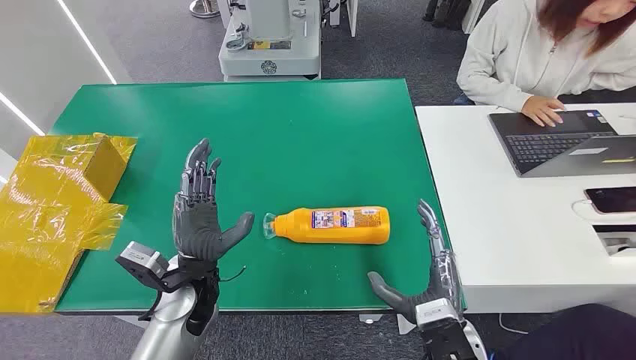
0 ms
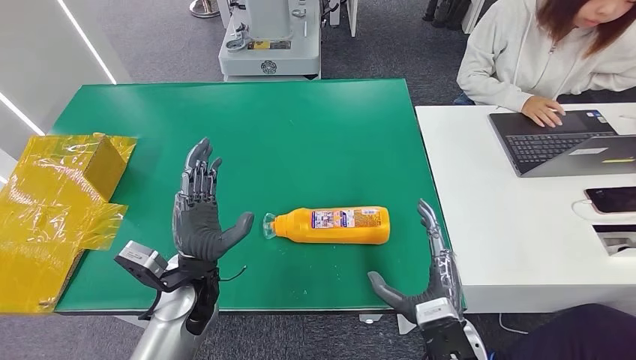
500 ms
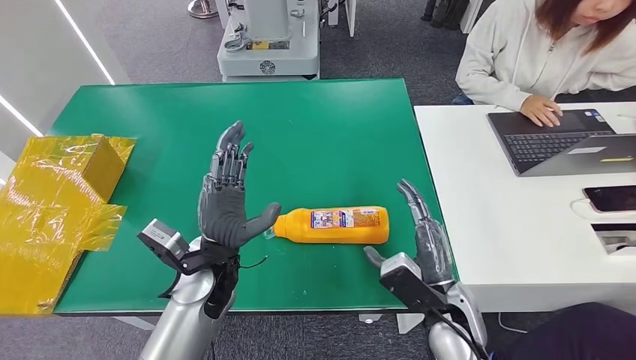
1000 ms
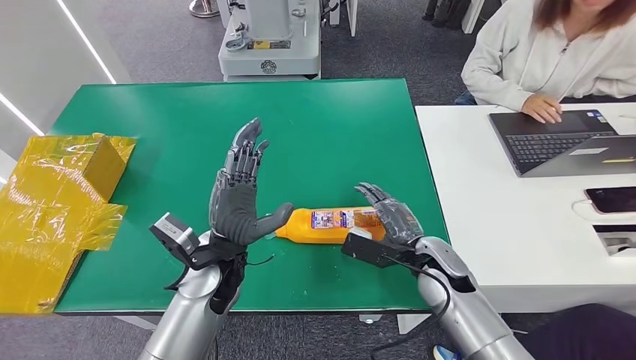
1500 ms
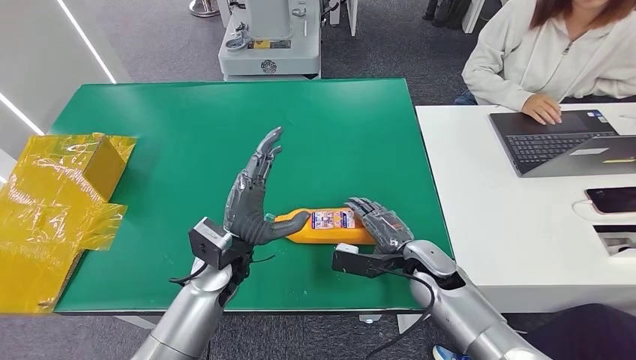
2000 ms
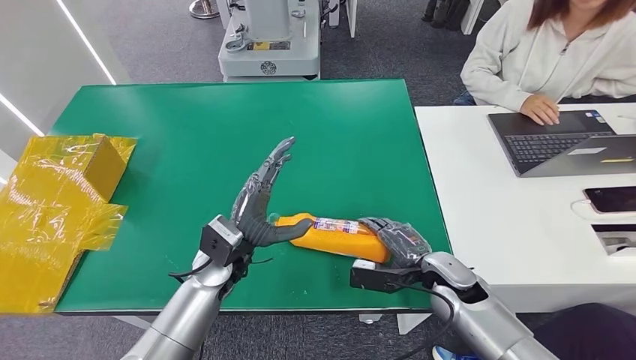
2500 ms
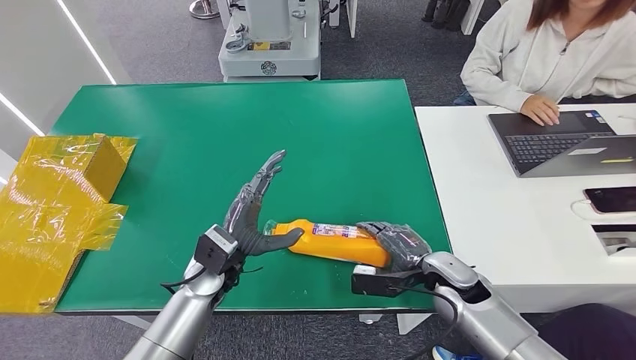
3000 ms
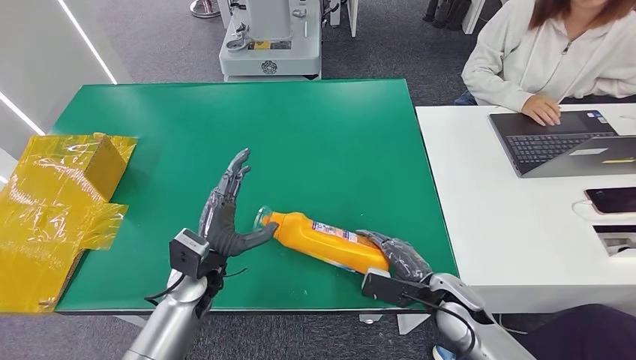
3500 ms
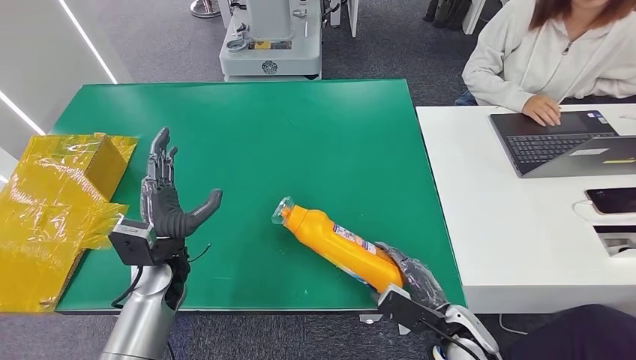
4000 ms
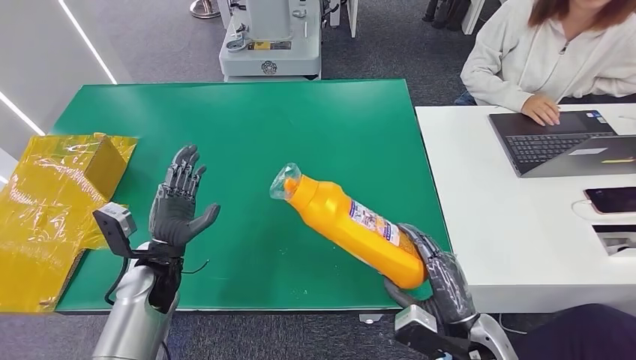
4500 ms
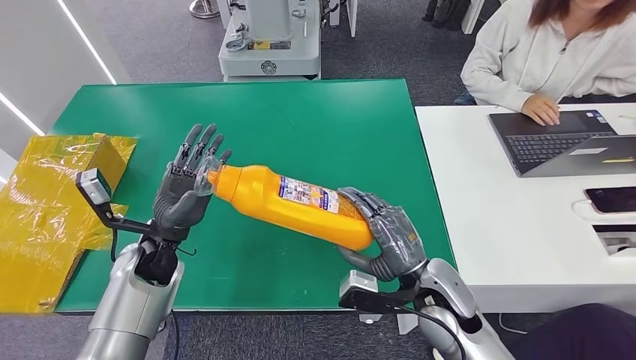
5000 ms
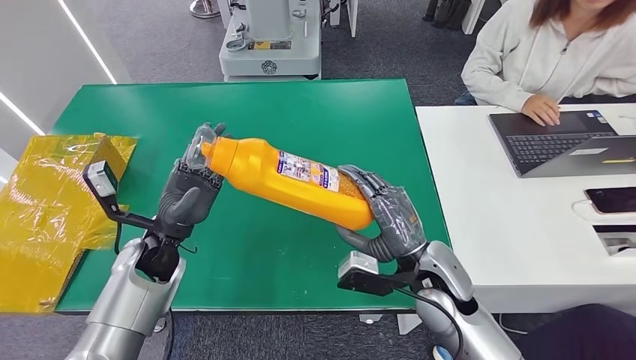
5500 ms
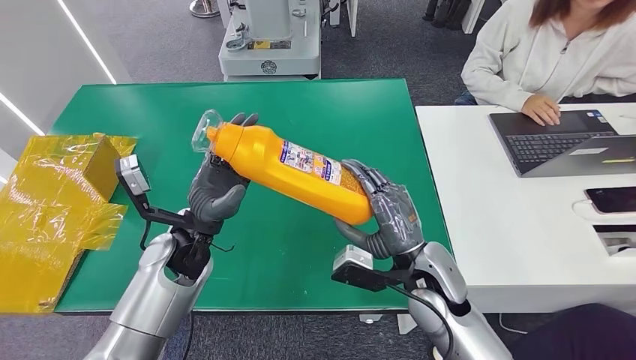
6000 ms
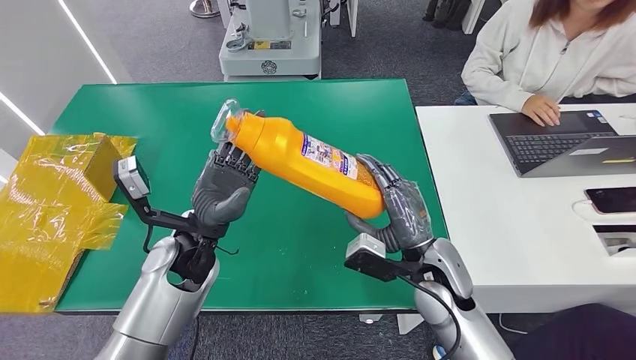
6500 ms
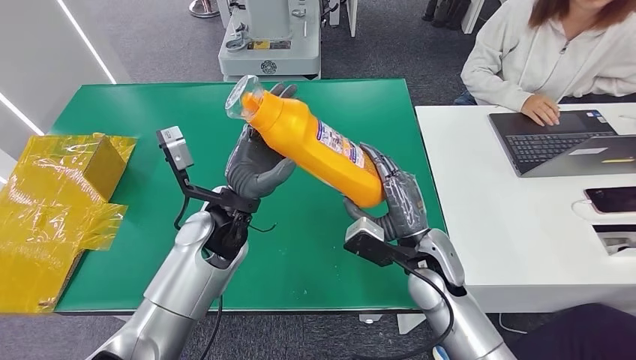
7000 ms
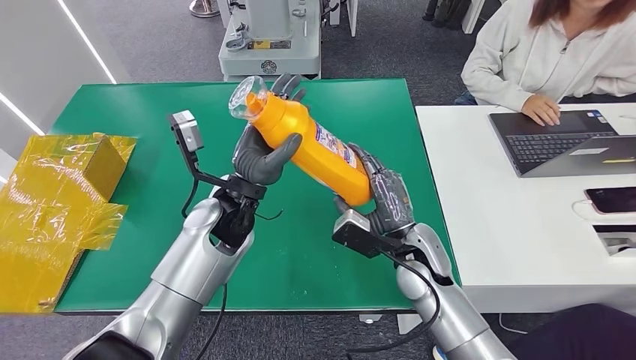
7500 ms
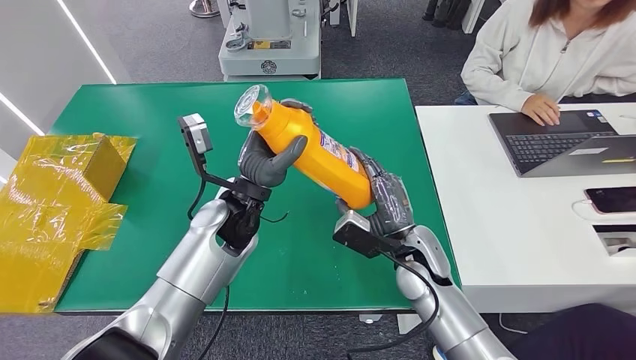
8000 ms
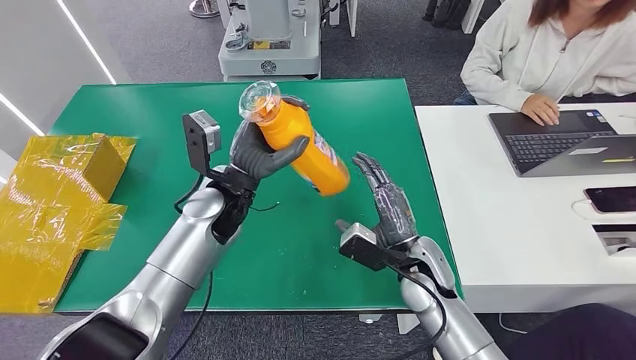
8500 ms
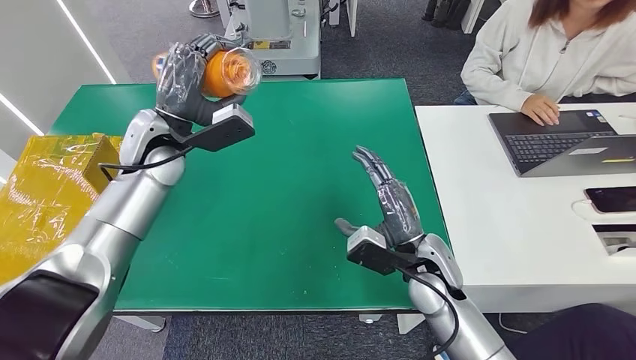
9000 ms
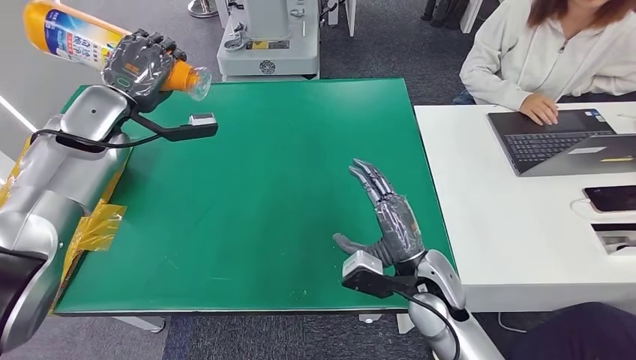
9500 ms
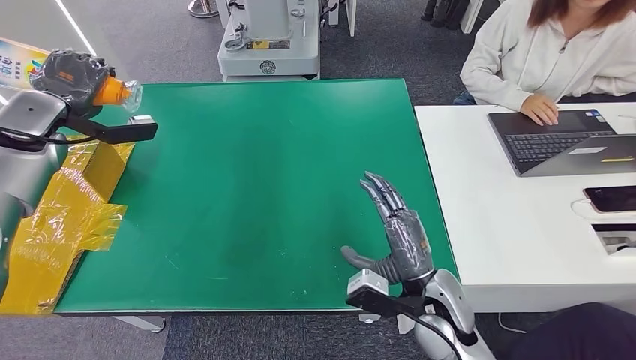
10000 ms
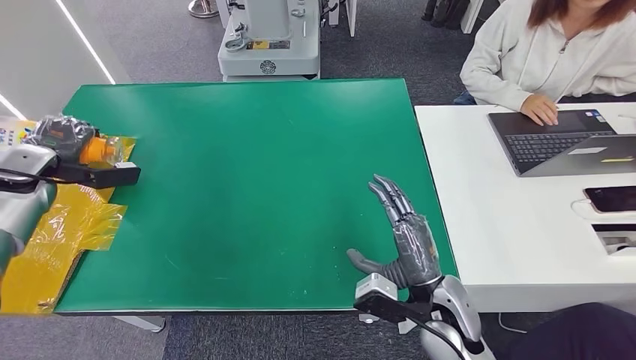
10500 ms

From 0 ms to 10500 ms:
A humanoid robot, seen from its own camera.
Step, from 0 ms to 4500 ms: Pick up the bottle from the table.
From 2000 ms to 4000 ms: The right hand goes some 10 cm backward, while the left hand shifts roughly 10 cm to the left.
From 4000 ms to 6500 ms: The left hand is displaced to the right and upward by roughly 10 cm. Meanwhile the right hand heads upward, forward and to the left, covering about 15 cm.
From 6500 ms to 8500 ms: The left hand heads forward, covering some 5 cm.
From 8500 ms to 10500 ms: The left hand travels to the left by some 40 cm. Meanwhile the right hand goes about 5 cm backward.

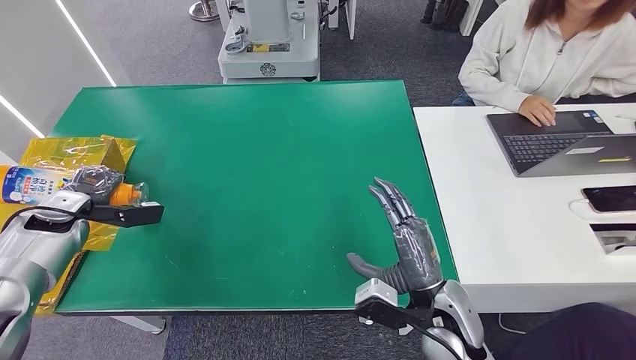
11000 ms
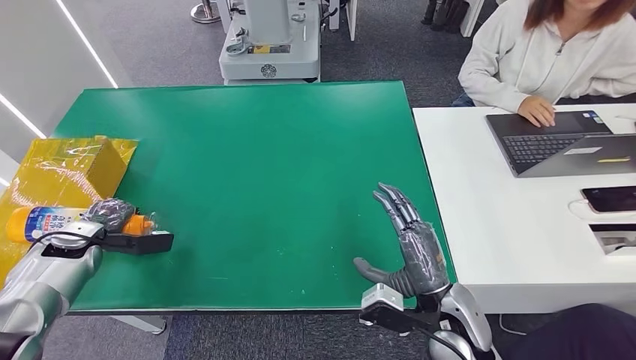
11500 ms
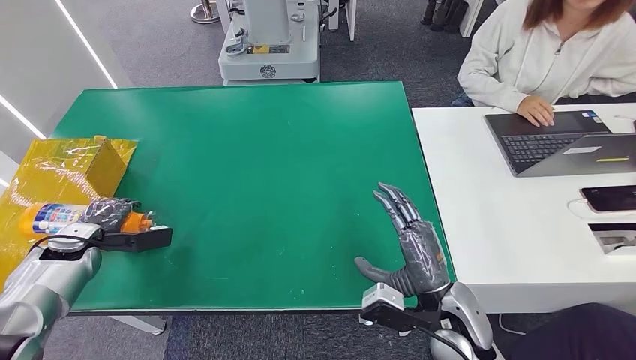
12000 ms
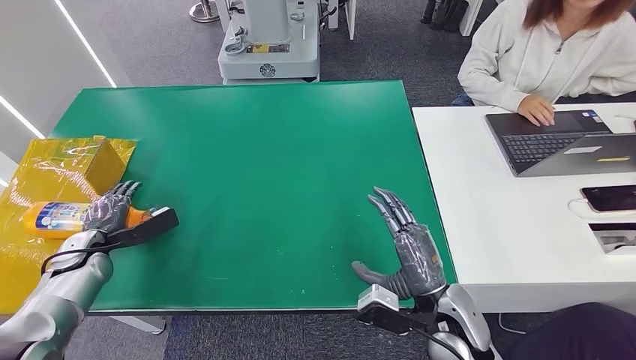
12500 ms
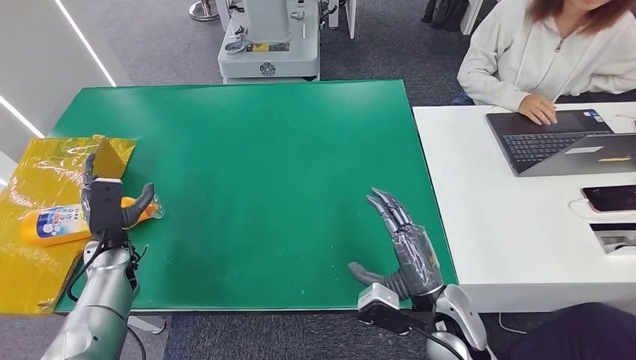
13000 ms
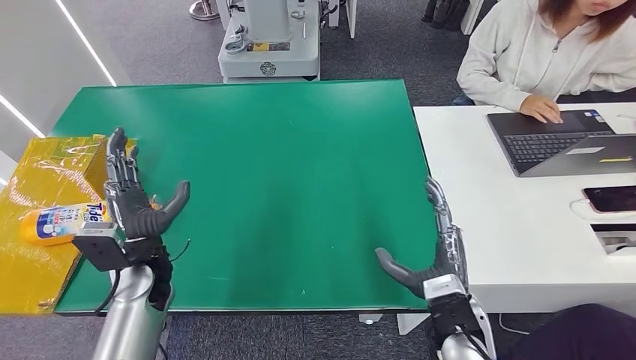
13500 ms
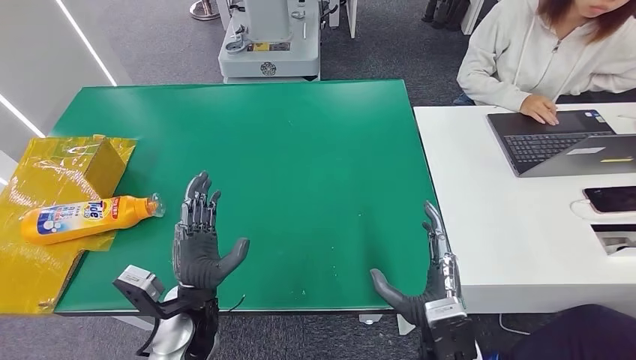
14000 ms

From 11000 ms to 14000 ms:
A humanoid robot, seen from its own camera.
Step, from 11000 ms to 14000 ms: Turn the bottle to the front side.
From 11000 ms to 12500 ms: The left hand is displaced downward by some 5 cm.
From 12500 ms to 14000 ms: The right hand moves backward, about 5 cm. The left hand travels to the right and backward by some 30 cm.
